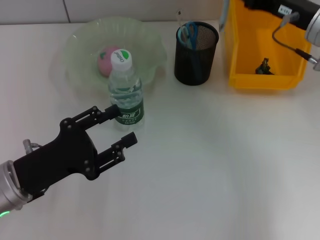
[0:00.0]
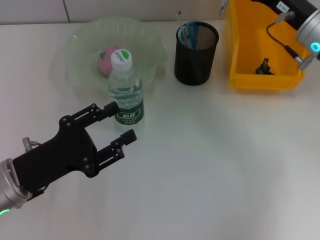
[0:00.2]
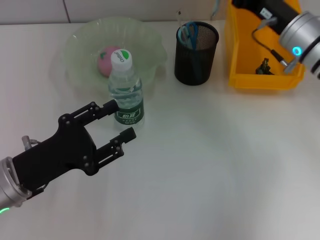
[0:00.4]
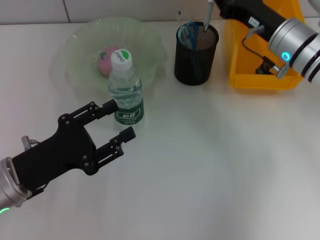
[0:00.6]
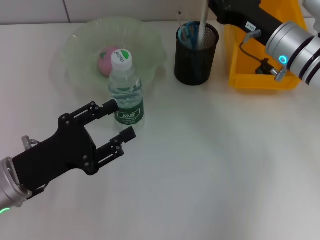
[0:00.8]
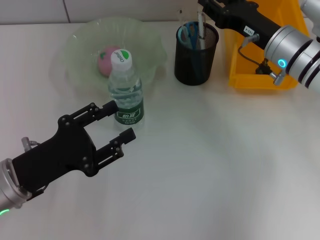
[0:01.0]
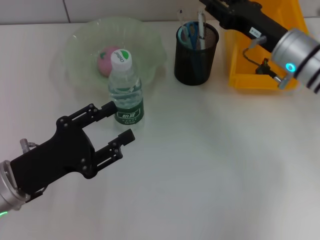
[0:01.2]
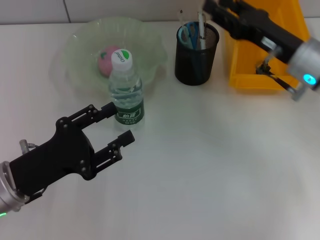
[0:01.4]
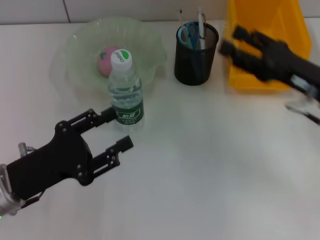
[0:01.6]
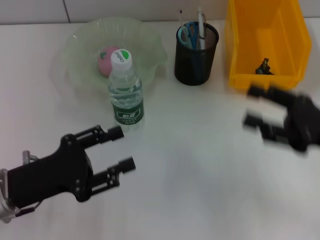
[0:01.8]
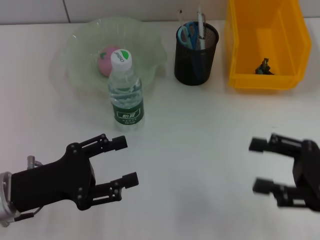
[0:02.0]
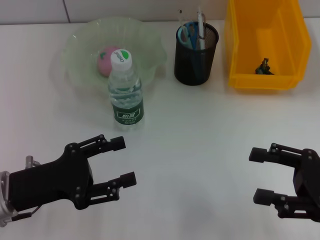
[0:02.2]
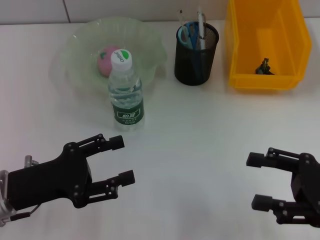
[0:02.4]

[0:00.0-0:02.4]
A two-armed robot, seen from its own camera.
Step, 0:00.0 to 0:01.4: Place the gray spring-action pen into the pen holder with the right hand.
0:00.0 to 0:01.2: The right gripper shifts by approximately 5 cm.
0:01.2 to 0:02.4: The right gripper travels backward and to the right by approximately 20 cm, and opens up.

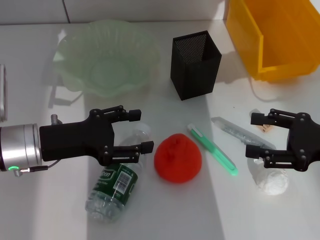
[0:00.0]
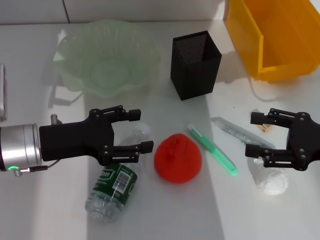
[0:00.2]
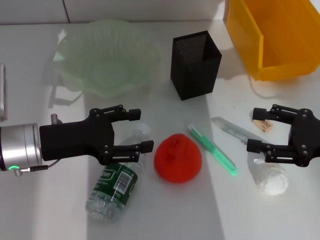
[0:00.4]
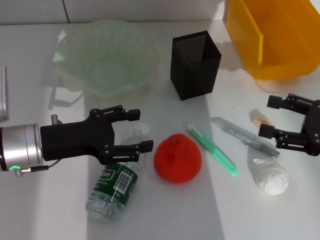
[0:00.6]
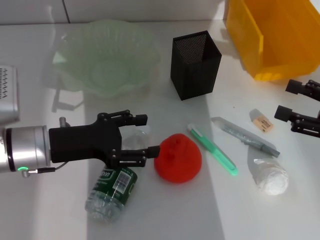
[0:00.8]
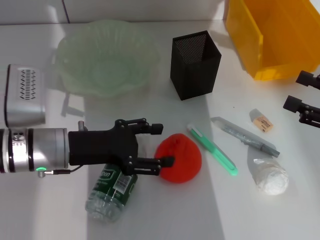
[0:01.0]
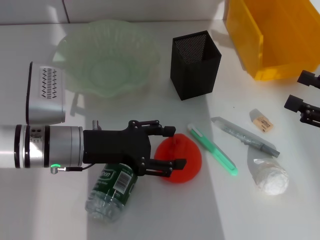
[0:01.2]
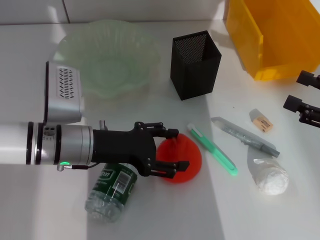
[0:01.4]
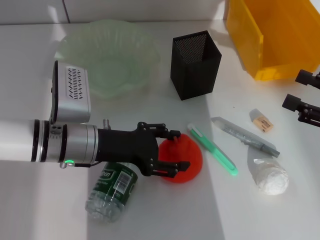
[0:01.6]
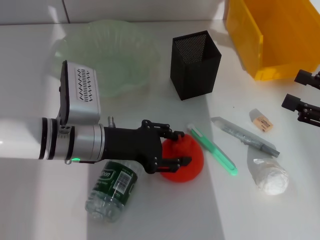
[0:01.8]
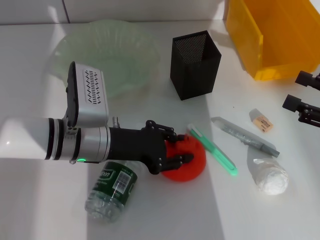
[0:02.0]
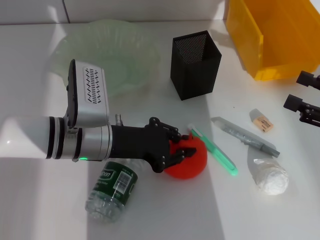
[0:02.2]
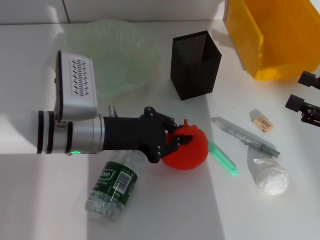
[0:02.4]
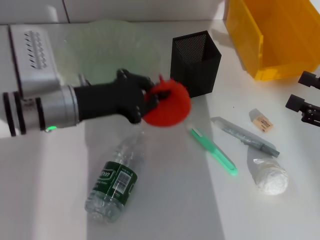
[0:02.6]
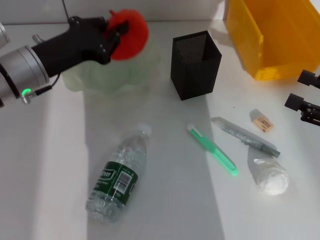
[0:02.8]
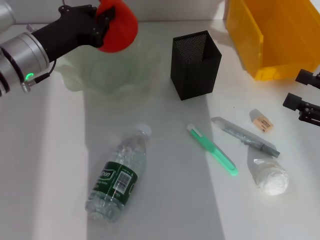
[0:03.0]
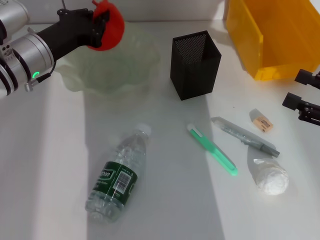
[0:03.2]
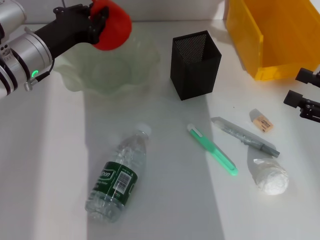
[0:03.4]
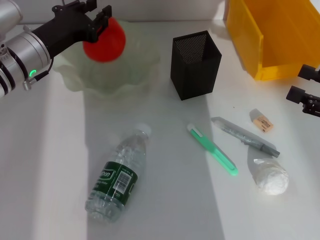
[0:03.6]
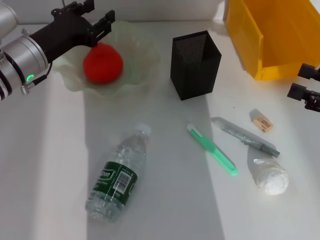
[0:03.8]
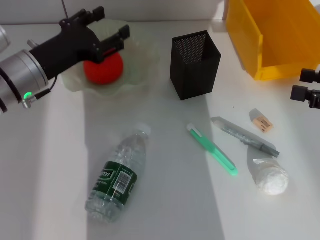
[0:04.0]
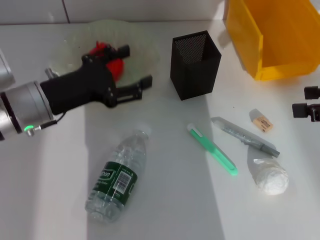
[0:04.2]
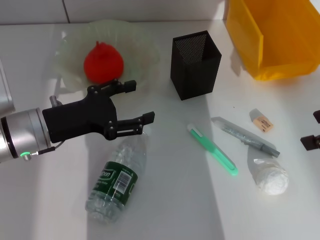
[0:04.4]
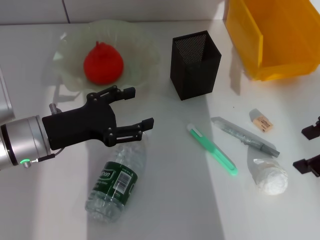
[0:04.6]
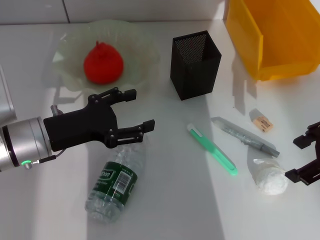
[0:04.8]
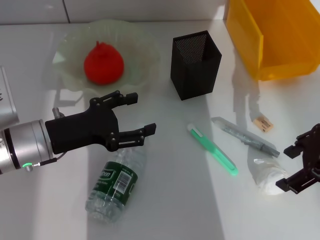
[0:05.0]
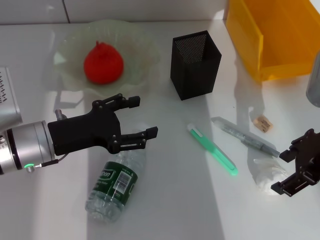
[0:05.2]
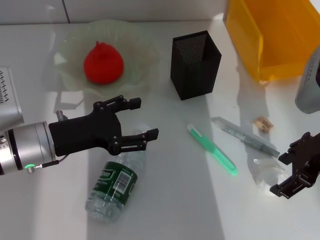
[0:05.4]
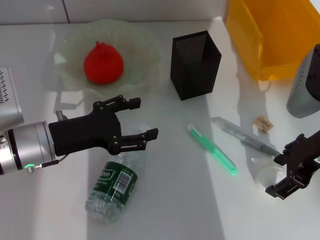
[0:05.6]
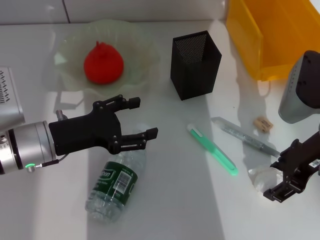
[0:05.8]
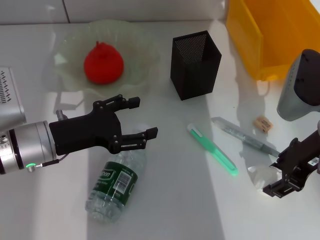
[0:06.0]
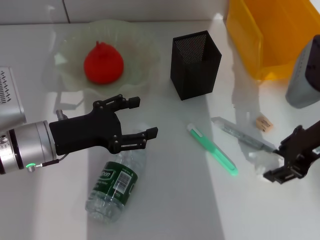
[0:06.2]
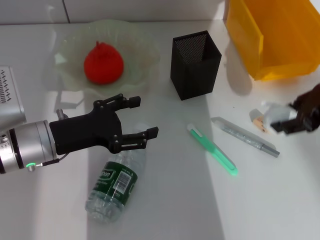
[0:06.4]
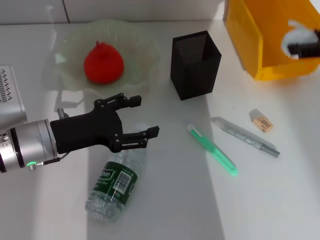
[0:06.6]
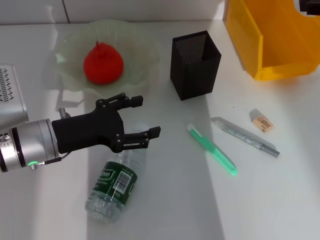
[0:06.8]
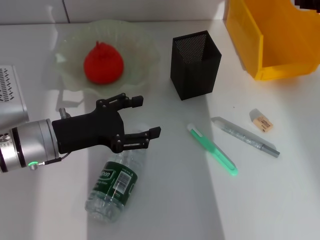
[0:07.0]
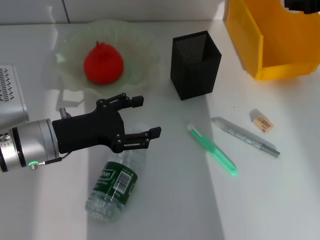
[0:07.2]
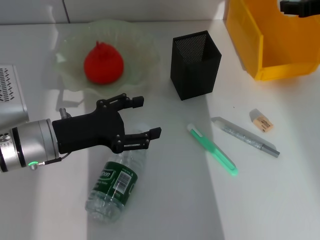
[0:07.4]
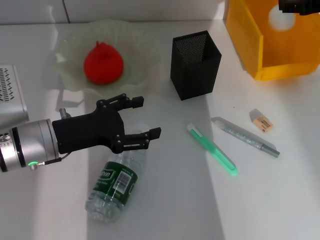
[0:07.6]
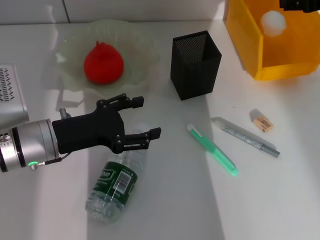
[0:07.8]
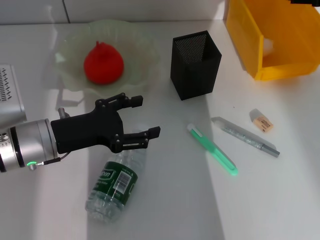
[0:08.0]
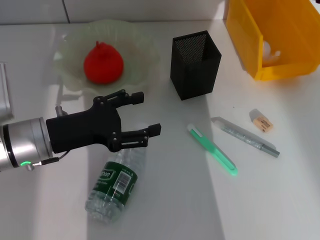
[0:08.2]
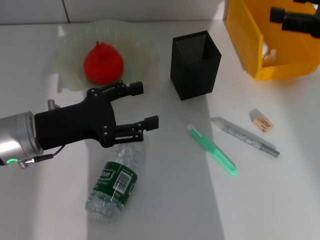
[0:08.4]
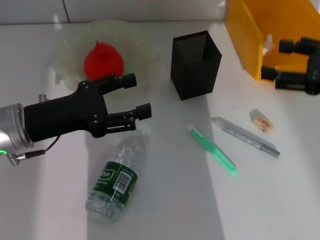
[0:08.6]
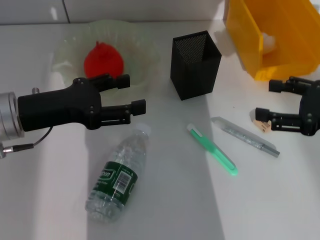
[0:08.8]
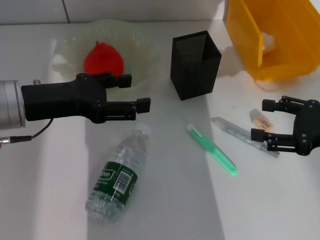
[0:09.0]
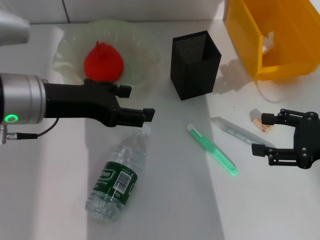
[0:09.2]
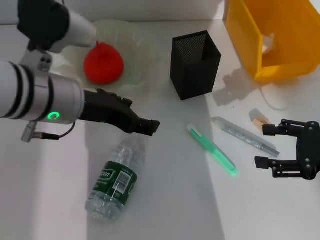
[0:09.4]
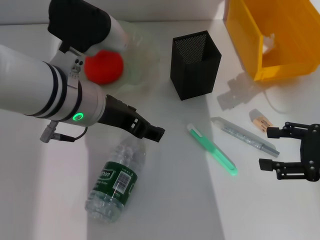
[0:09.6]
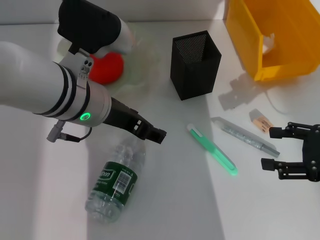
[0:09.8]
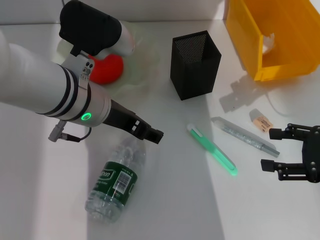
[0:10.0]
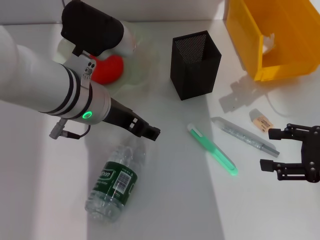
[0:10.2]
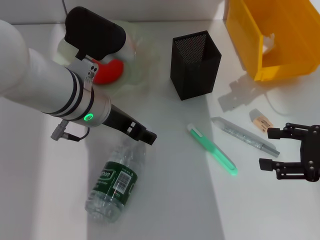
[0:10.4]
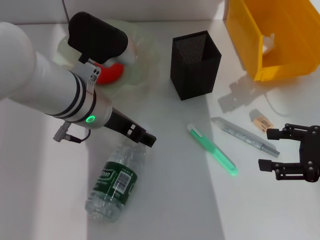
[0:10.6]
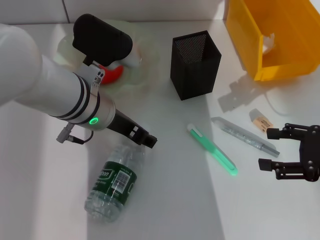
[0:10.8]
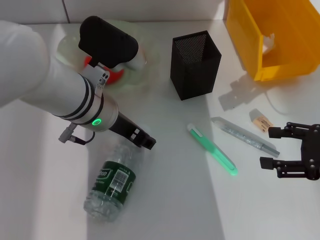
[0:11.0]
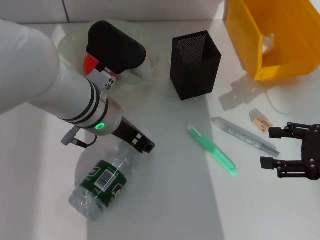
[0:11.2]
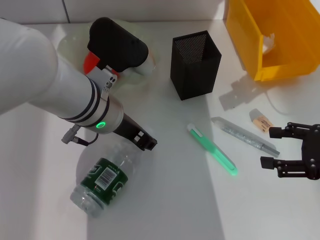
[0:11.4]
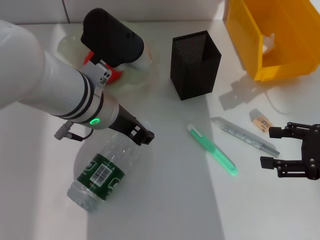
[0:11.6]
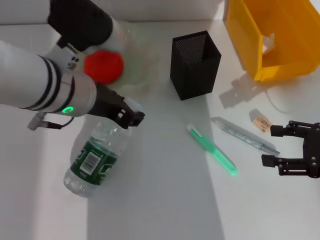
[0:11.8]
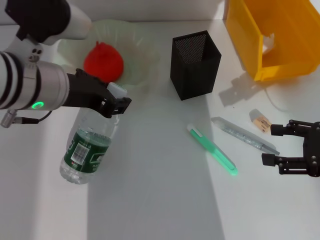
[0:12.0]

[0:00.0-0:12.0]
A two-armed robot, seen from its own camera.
Step, 0:00.0 to 0:02.2: Grab the orange with the left hand.
Step, 0:02.4 to 0:03.6: Place the orange into the fruit bowl with the left hand.
Step, 0:03.8 to 0:05.8: Grab the paper ball with the right hand.
Step, 0:06.2 to 0:07.8: Place the paper ball into the trash can with the right hand.
Step, 0:08.0 to 0:11.2: Grab the water bottle with the left hand.
0:00.0 to 0:01.6: The left gripper shifts about 5 cm to the right.
0:01.6 to 0:03.0: The left gripper is displaced upward, forward and to the left by about 10 cm, and closes up.
0:03.0 to 0:04.4: The right gripper heads upward, covering about 10 cm. The left gripper goes approximately 5 cm backward, and opens its fingers.
0:04.4 to 0:06.0: The right gripper heads to the left and downward, covering some 10 cm.
0:06.0 to 0:07.6: The right gripper heads forward and to the right, covering approximately 15 cm.
0:07.6 to 0:09.0: The left gripper goes about 10 cm upward; the right gripper is displaced backward and downward by some 20 cm.
0:09.0 to 0:10.4: The left gripper travels to the right by roughly 10 cm.
0:10.4 to 0:12.0: The left gripper moves some 5 cm, and closes up.

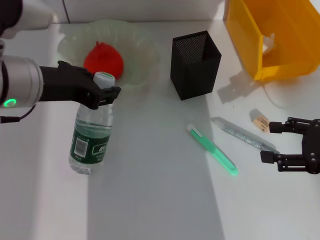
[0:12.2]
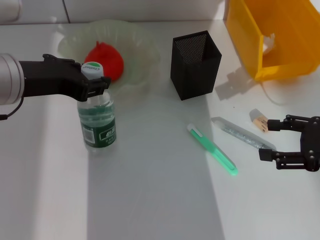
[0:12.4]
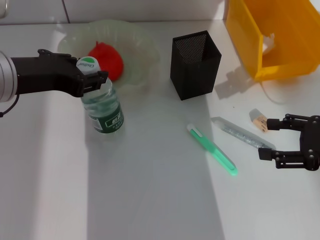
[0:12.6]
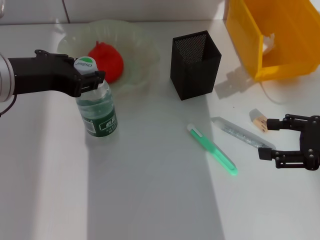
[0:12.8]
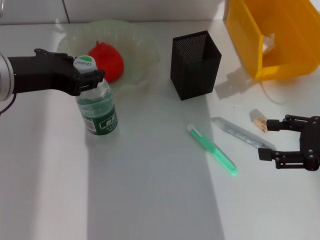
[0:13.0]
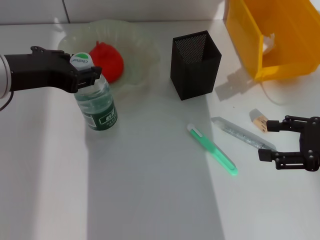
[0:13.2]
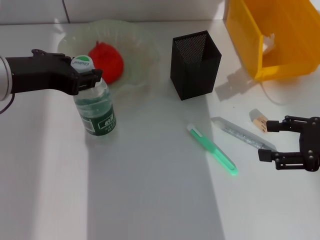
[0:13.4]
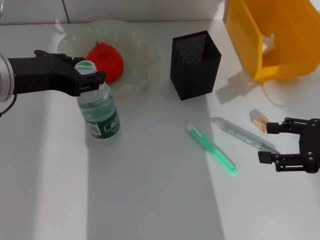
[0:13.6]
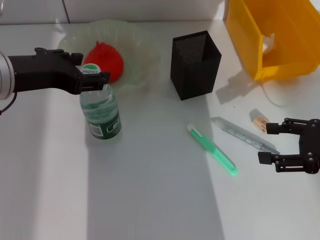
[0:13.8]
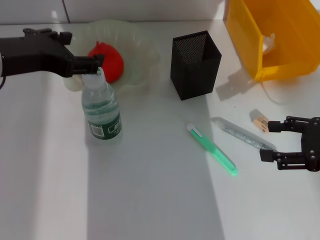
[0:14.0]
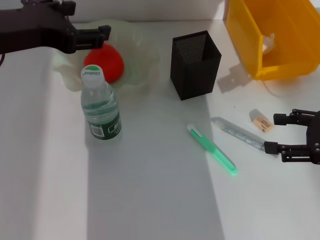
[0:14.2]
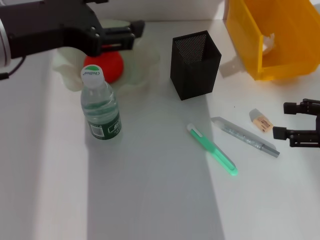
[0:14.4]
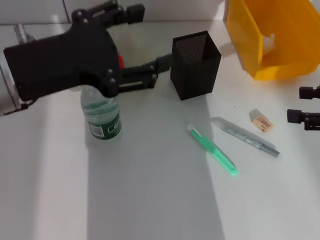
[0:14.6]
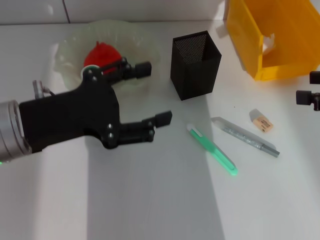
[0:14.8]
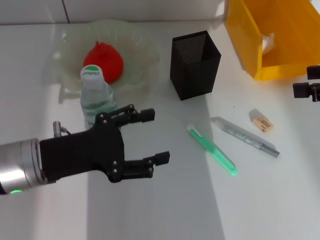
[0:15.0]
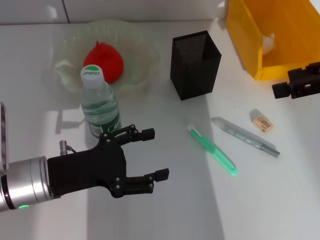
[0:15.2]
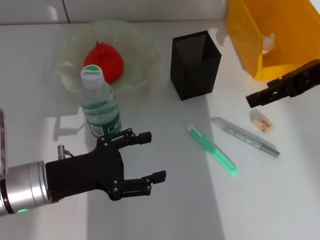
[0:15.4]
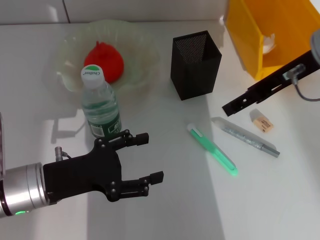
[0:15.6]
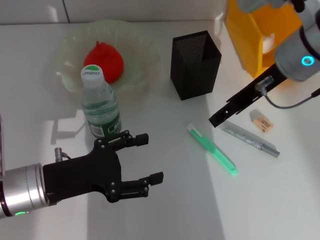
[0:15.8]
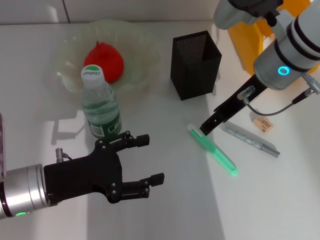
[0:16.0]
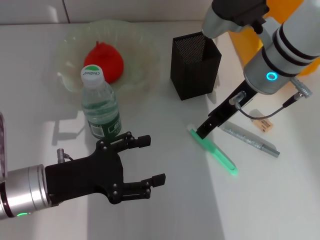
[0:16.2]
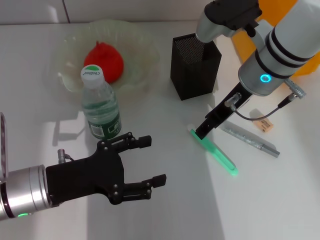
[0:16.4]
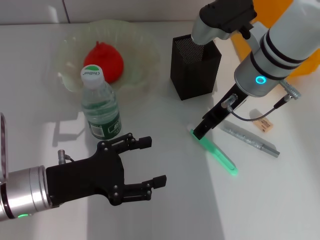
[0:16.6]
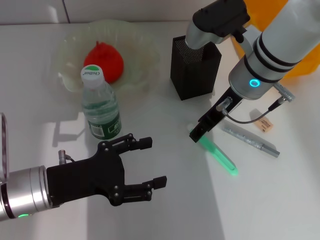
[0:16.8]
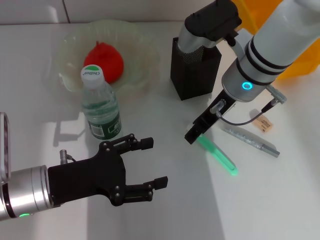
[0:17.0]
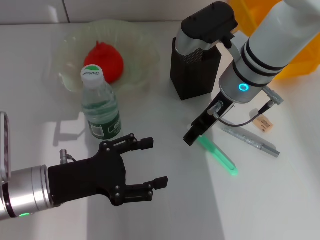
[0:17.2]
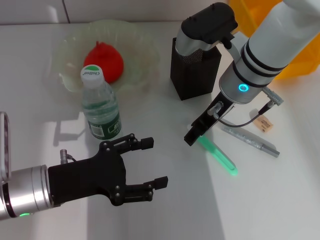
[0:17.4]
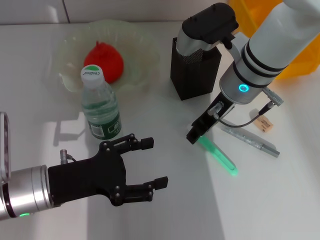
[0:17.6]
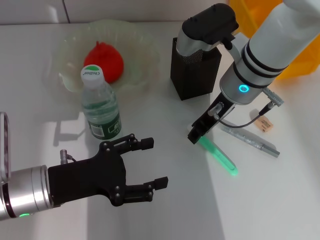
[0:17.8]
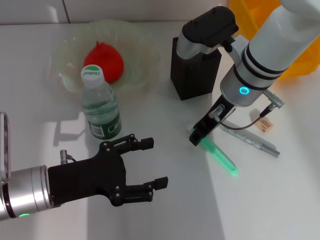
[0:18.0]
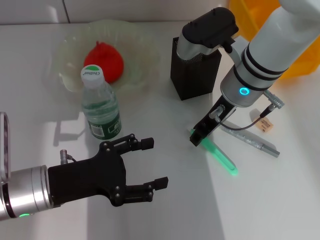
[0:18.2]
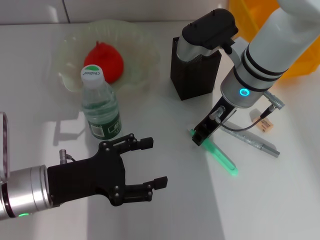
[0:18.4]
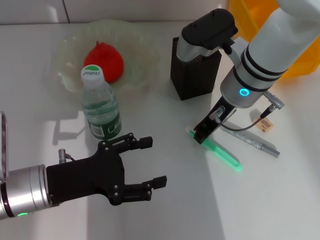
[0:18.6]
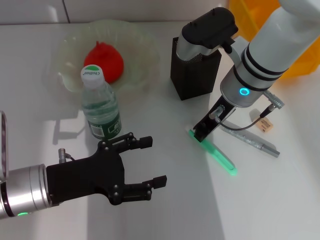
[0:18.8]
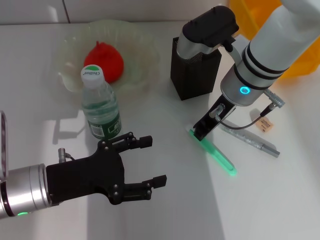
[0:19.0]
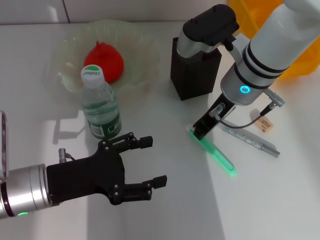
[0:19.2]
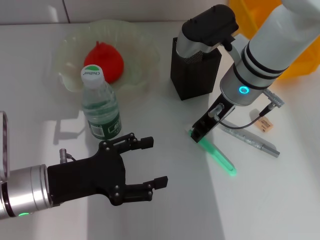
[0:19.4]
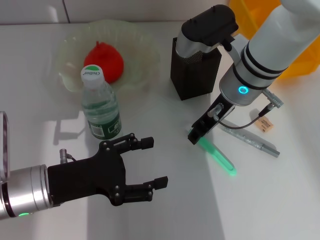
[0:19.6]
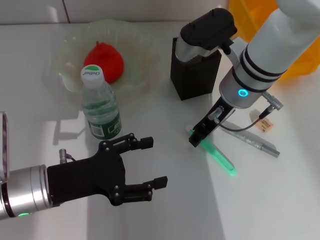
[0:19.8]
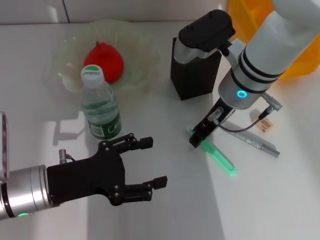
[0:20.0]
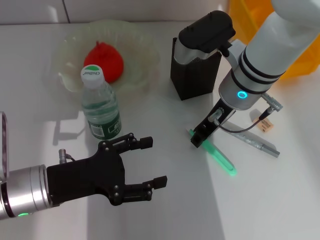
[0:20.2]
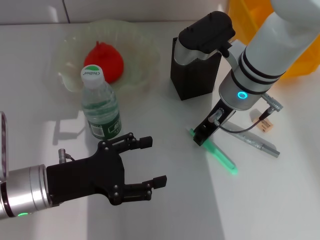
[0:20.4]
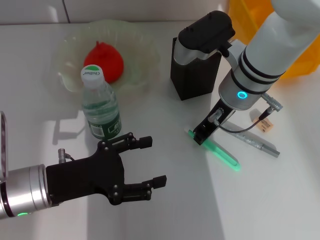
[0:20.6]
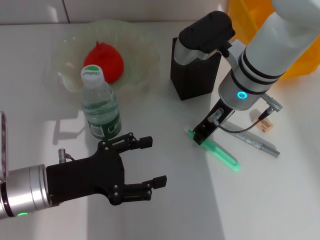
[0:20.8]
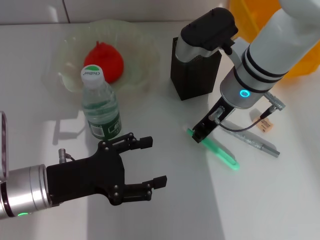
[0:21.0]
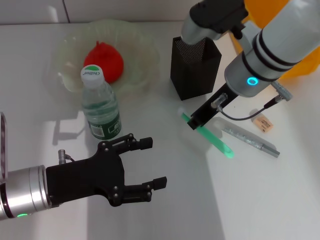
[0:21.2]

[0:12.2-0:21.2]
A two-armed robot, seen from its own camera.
Step, 0:12.2 to 0:13.8: Place the water bottle on the table with the left hand.
Step, 0:14.0 to 0:20.8: Grab the blue utility knife with the right hand.
0:12.2 to 0:13.8: The grippers stay close to where they were, moving slightly.
0:13.8 to 0:15.2: The left gripper travels downward and backward by some 15 cm, and opens up, while the right gripper shifts roughly 15 cm upward.
0:15.2 to 0:16.6: The right gripper shifts about 20 cm to the left and downward.
0:16.6 to 0:18.2: The right gripper closes its fingers.
0:18.2 to 0:19.8: The right gripper closes, then opens again.
0:19.8 to 0:21.2: The right gripper closes.
